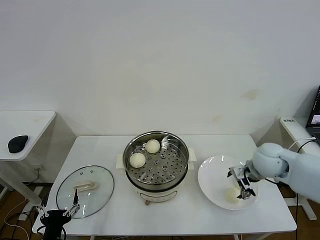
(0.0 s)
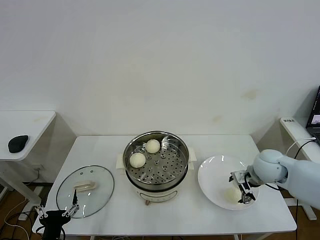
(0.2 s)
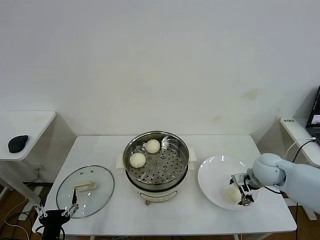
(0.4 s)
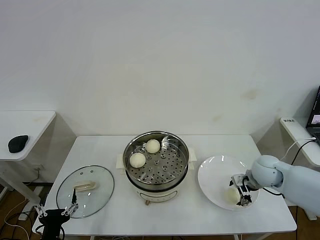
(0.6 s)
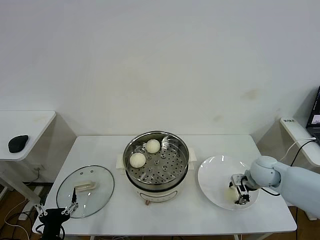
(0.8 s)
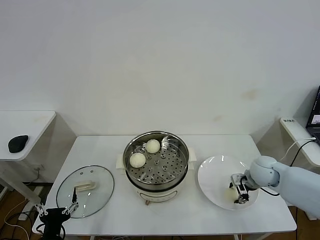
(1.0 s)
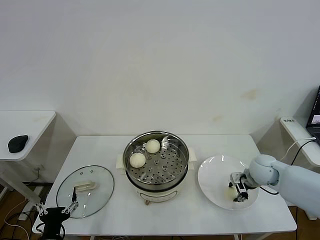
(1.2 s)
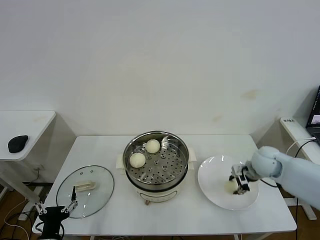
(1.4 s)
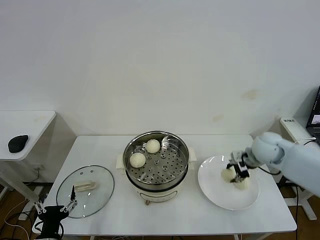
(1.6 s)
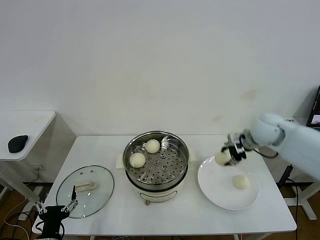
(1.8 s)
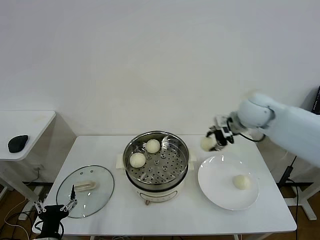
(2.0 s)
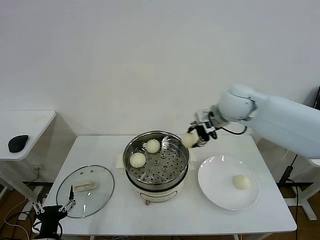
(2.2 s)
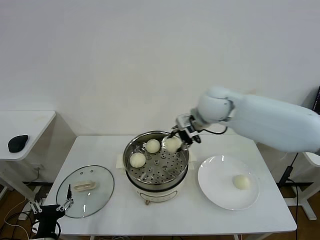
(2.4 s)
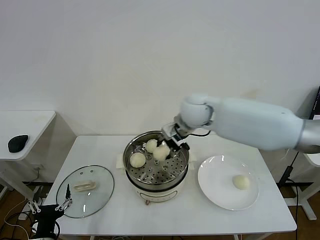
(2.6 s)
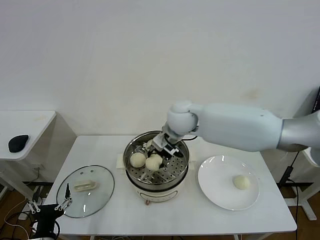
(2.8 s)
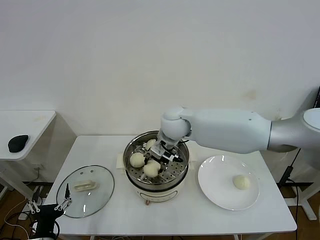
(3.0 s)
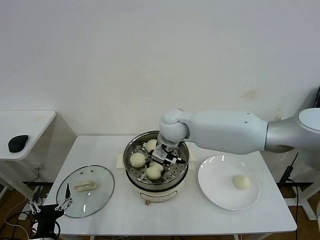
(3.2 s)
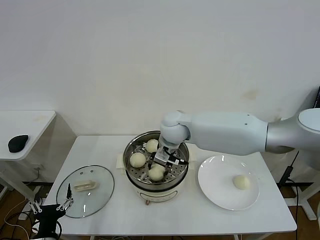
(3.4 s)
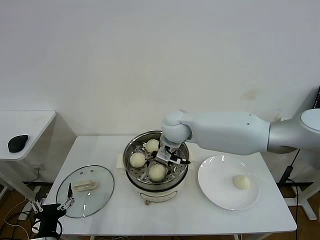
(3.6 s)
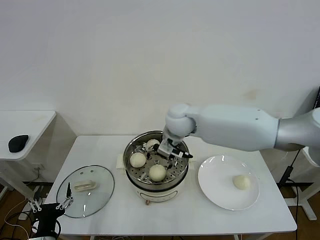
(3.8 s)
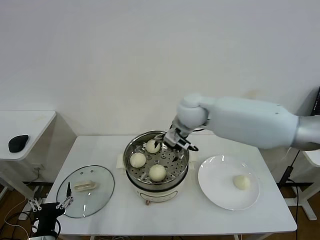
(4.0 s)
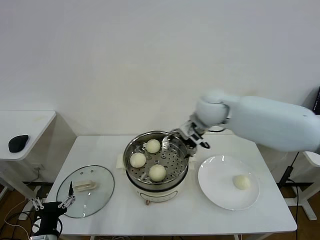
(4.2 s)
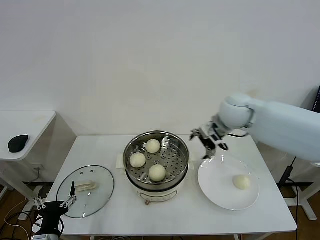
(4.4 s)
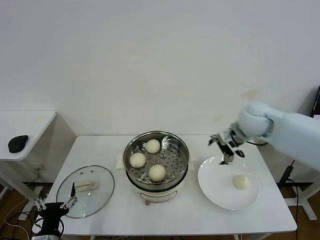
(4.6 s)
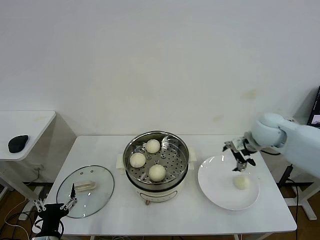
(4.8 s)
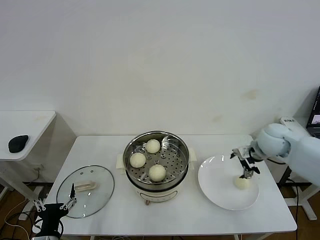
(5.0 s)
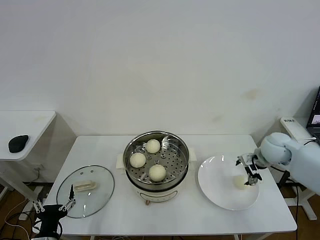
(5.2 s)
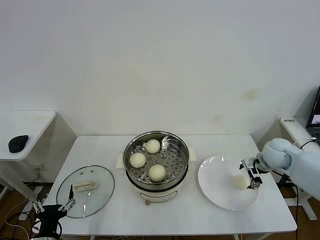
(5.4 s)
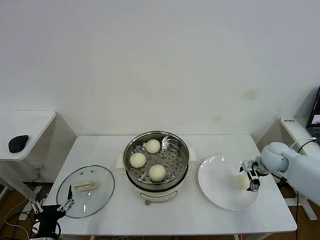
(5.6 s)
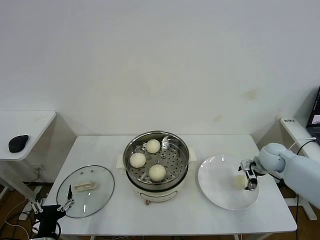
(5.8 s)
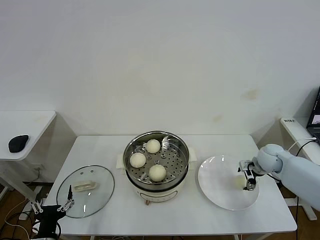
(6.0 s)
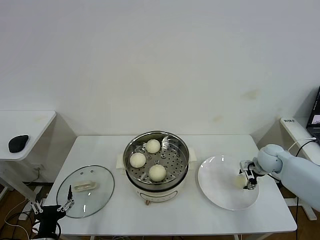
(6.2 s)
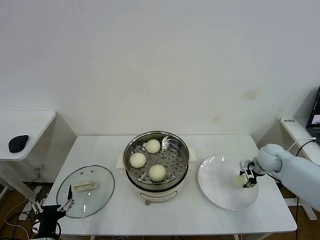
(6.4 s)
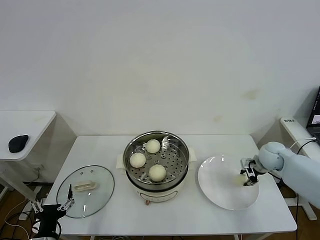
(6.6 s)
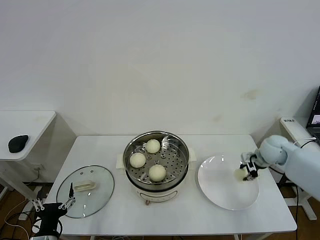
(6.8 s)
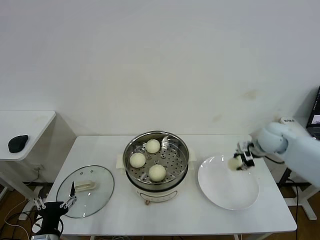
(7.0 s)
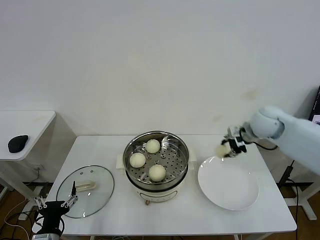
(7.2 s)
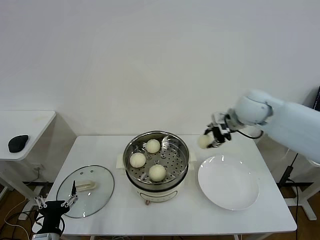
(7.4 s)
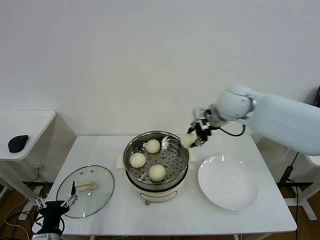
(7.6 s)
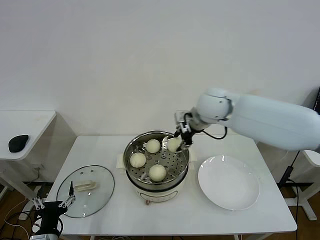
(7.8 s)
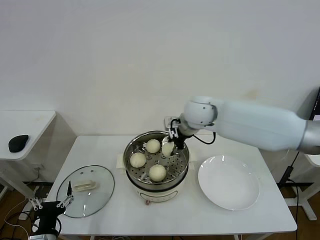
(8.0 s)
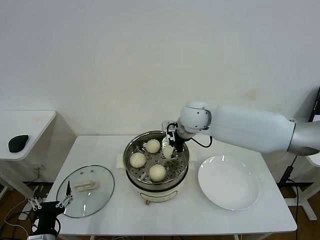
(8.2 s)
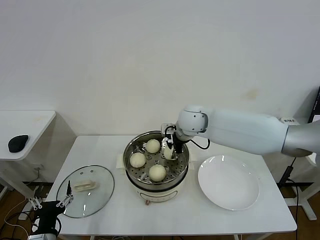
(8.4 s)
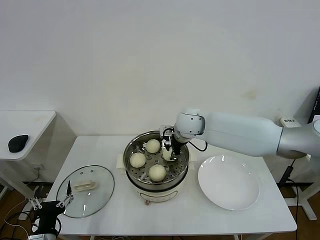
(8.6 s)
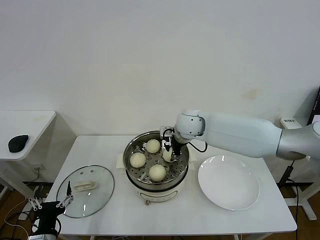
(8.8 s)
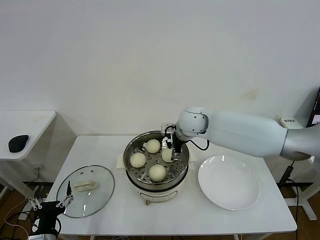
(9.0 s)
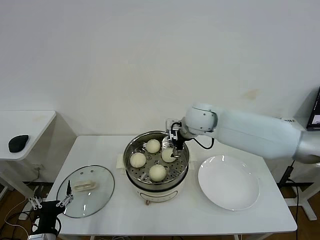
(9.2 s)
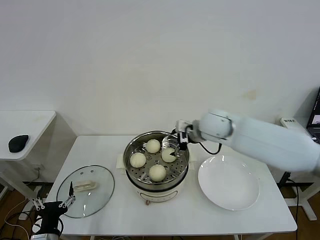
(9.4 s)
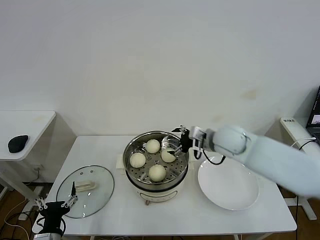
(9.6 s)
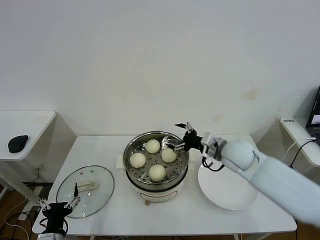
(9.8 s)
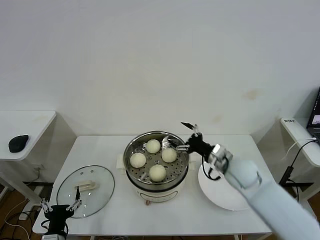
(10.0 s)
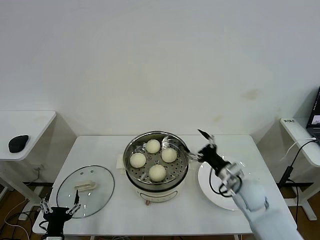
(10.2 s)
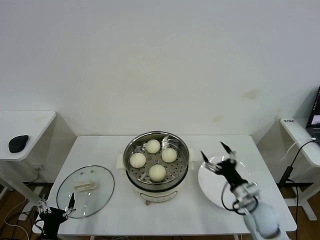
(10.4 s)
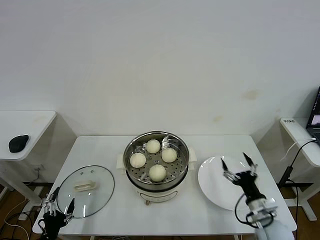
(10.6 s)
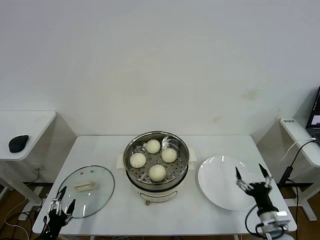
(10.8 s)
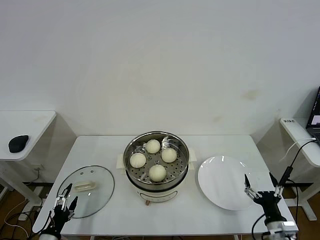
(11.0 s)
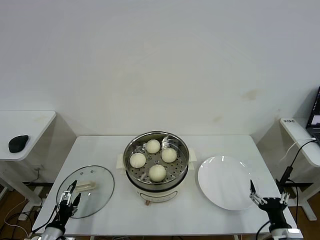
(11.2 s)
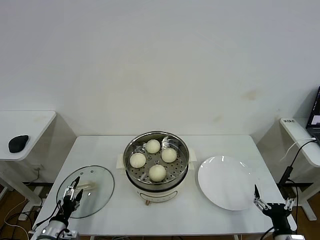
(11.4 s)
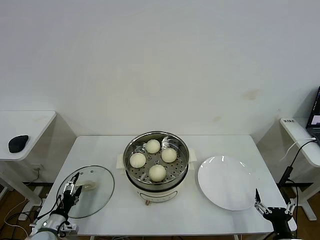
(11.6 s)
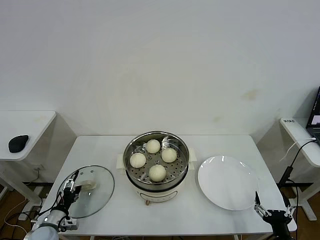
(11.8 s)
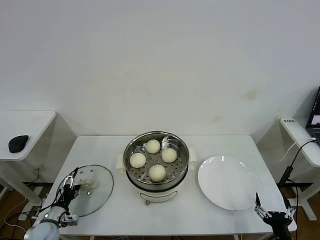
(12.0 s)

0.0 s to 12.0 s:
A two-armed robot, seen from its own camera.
Step, 1.4 to 3.4 s: Place the baozi on the steamer with right gripper.
Step, 3.8 to 6.4 s: Grasp the baozi in the plate with right gripper.
Step, 6.6 to 8.8 s: Place the baozi on the steamer with right gripper.
0.0 to 1.6 s: The right gripper goes about 5 cm forward, goes downward and returns, roughly 5 cm each way, and closes.
1.6 to 3.0 s: The right gripper goes some 30 cm to the left.
3.0 to 4.4 s: The right gripper goes about 20 cm to the right, and opens.
4.4 to 6.0 s: The right gripper is displaced downward and to the right by roughly 25 cm.
6.0 to 7.6 s: The right gripper heads upward and to the left, covering some 30 cm, and closes.
7.6 to 9.0 s: The right gripper travels to the left and downward by roughly 10 cm, and opens.
9.0 to 10.4 s: The right gripper goes some 35 cm backward, to the right and downward.
10.4 to 12.0 s: The left gripper is displaced forward, to the left and downward by about 15 cm. The right gripper heads backward, covering some 15 cm.

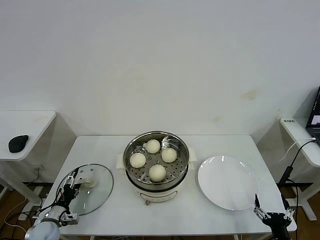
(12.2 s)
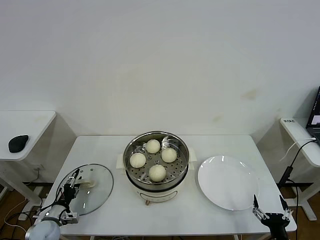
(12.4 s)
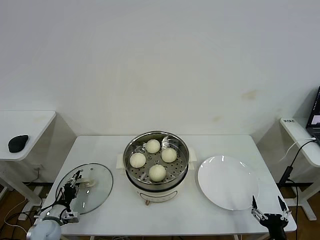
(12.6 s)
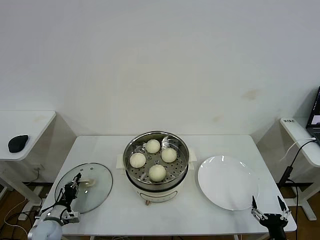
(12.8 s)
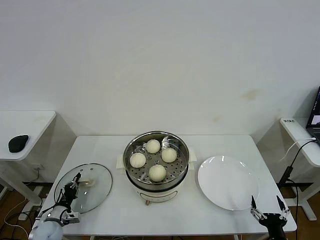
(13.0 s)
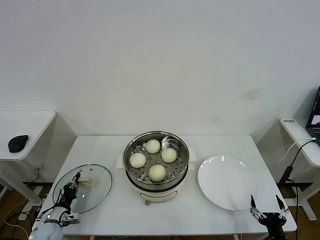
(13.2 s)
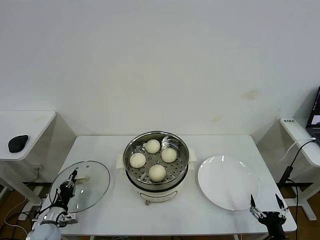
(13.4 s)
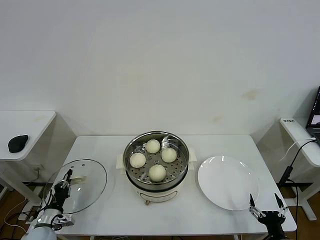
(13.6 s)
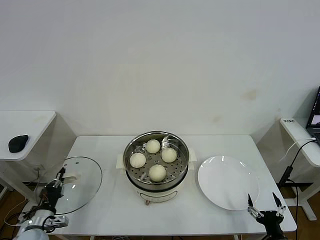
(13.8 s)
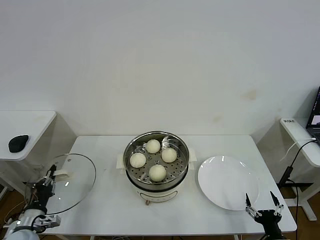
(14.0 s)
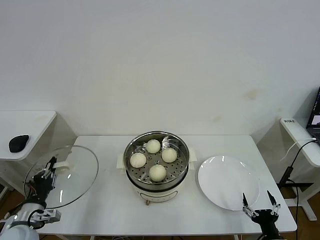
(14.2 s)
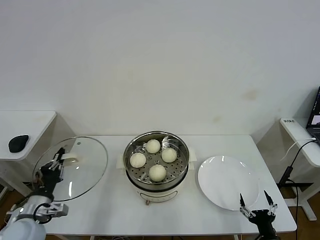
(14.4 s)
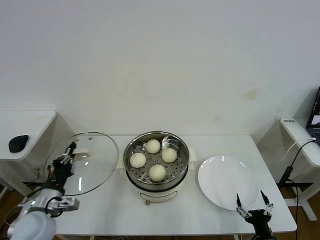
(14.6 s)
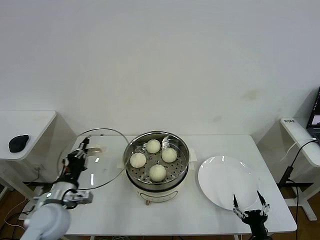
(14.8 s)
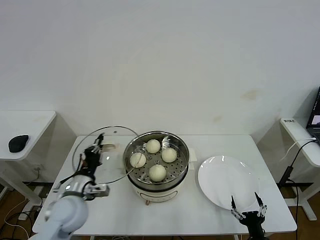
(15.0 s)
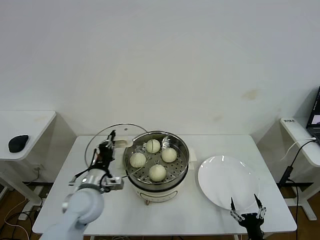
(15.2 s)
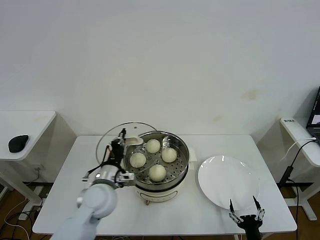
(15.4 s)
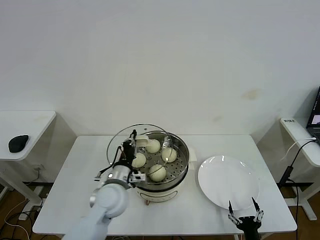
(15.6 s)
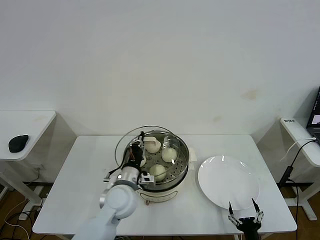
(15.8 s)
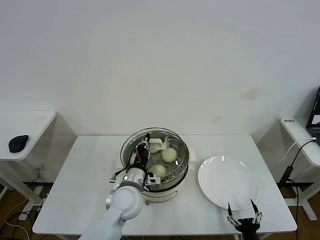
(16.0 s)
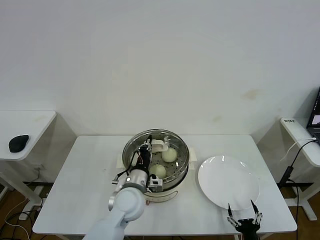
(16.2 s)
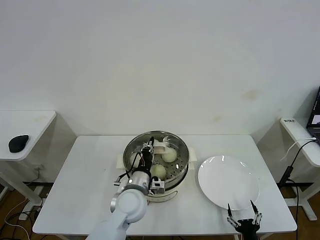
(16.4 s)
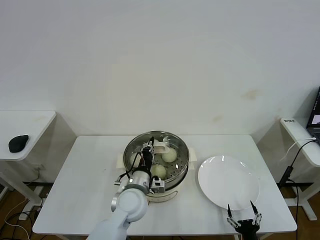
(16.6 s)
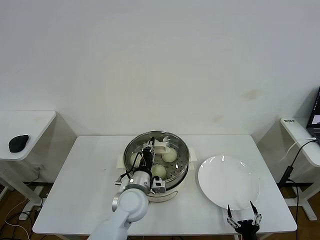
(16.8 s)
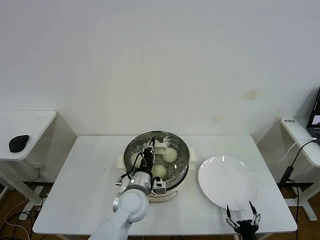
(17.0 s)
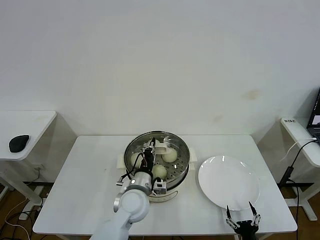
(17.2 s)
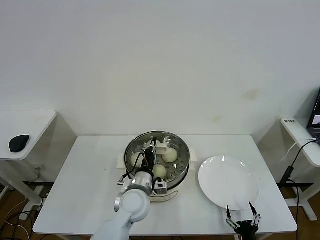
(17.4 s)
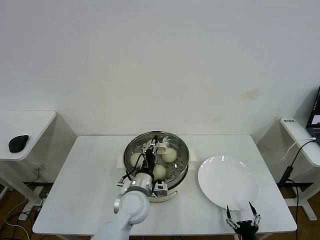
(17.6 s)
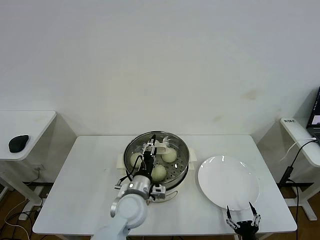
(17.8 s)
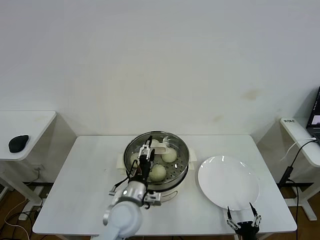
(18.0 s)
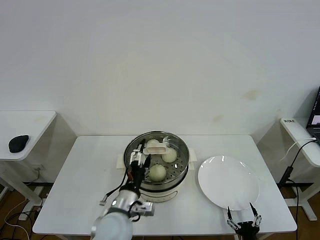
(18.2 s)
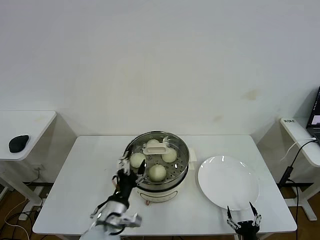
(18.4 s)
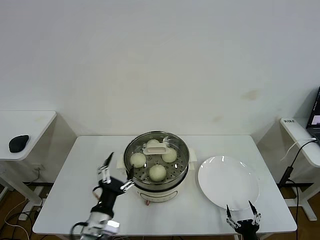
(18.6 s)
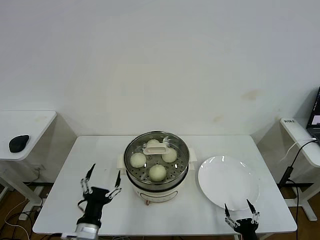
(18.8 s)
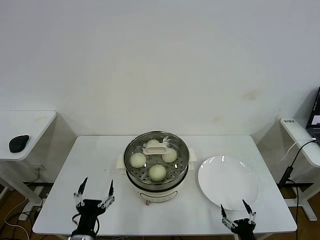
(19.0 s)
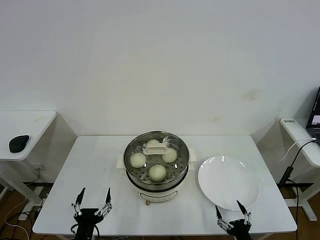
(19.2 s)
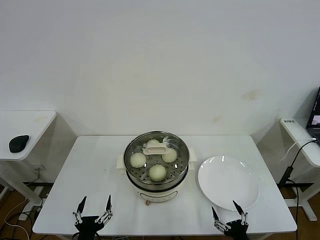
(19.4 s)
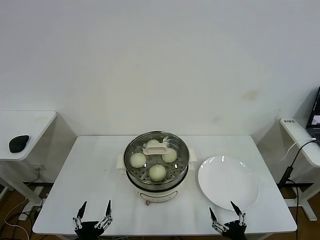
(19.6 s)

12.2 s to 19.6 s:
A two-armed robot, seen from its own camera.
Step, 13.0 to 18.0 s: Place the pot lid on the steamer with left gripper.
12.2 to 13.6 s: The left gripper closes its fingers.
13.6 to 15.2 s: The left gripper heads to the right and upward, covering roughly 25 cm, while the right gripper shifts by approximately 5 cm.
15.2 to 16.6 s: The left gripper heads to the right, covering roughly 15 cm.
16.6 to 18.2 s: The left gripper goes about 5 cm backward, and opens its fingers.
18.2 to 19.6 s: The right gripper is displaced upward by approximately 5 cm. Meanwhile the left gripper is displaced backward, to the left and downward by about 20 cm.

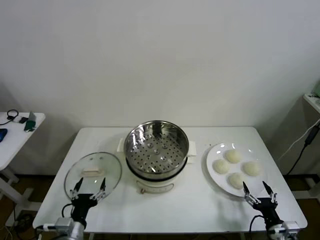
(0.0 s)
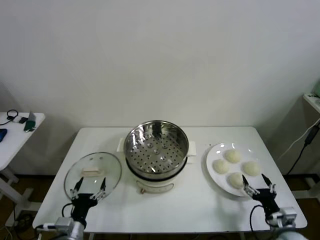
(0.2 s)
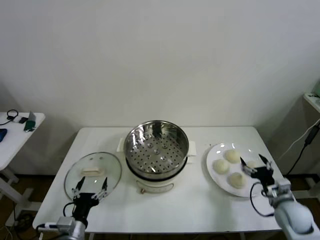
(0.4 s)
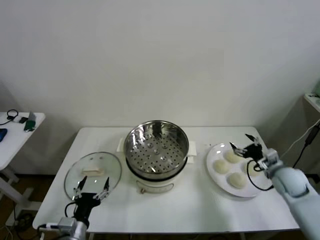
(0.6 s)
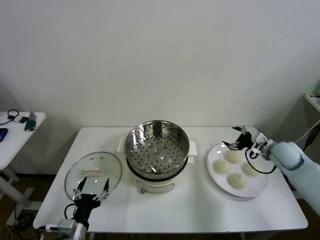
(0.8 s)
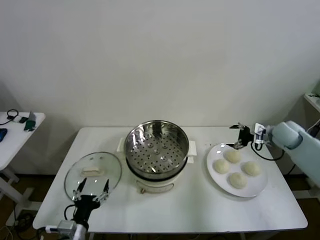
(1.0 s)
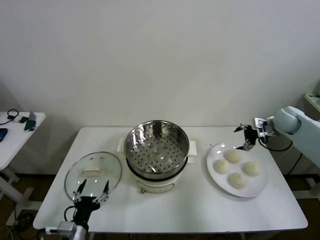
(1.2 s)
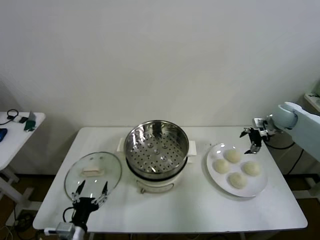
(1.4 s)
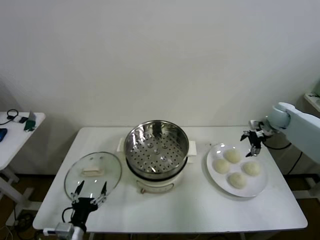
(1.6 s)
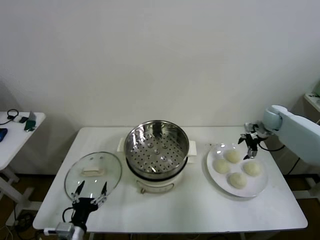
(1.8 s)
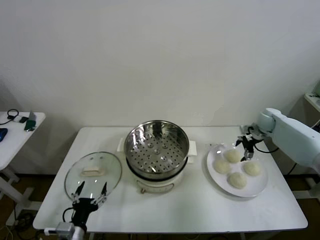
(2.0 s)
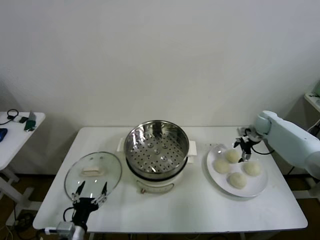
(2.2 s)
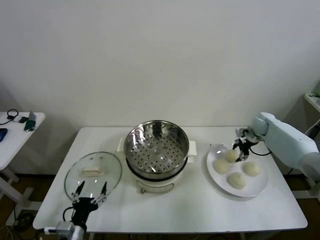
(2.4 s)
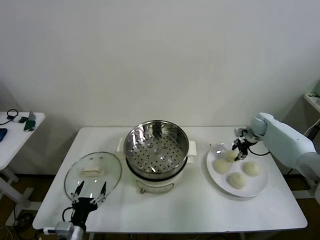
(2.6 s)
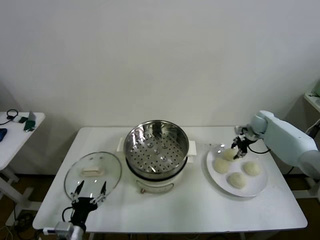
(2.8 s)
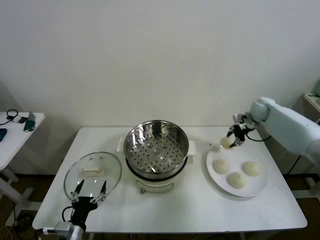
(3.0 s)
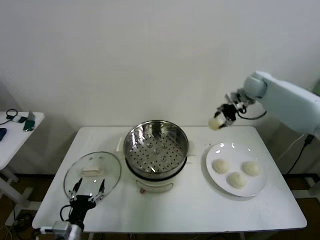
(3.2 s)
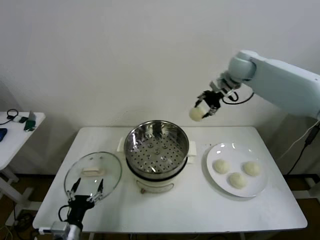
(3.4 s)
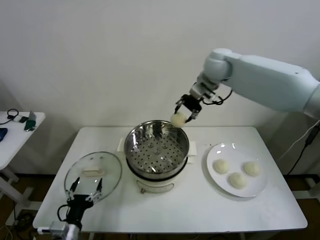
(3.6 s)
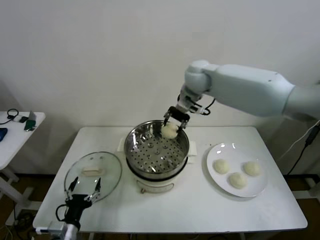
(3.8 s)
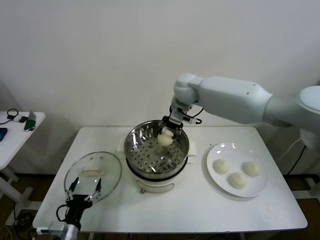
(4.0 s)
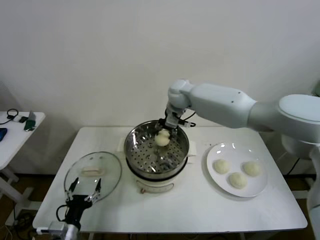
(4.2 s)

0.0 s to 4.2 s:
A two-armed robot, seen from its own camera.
Step, 0.0 to 2.4 s: Grasp the baozi in the plate with right gripper.
1.4 to 2.8 s: The right gripper ends up approximately 10 cm from where it was, and closes.
2.8 to 4.2 s: The right gripper is displaced to the left by approximately 35 cm.
